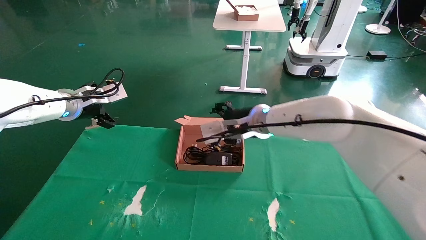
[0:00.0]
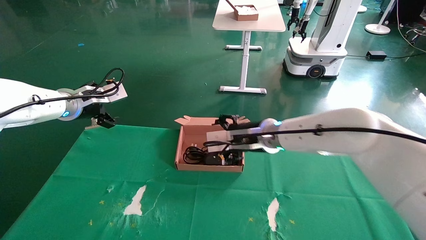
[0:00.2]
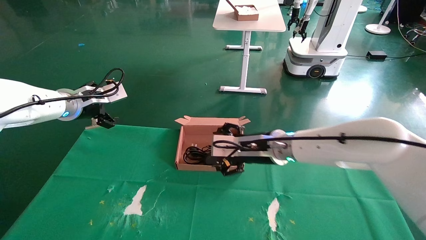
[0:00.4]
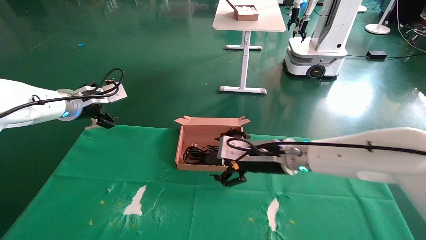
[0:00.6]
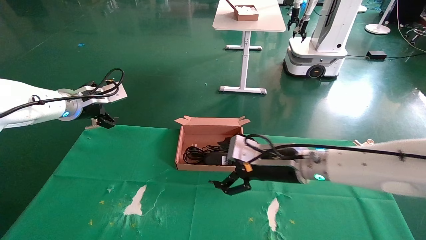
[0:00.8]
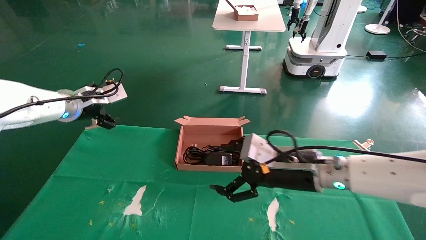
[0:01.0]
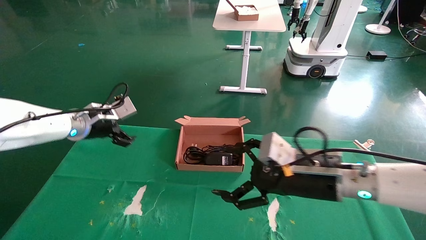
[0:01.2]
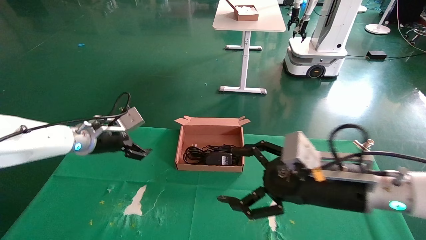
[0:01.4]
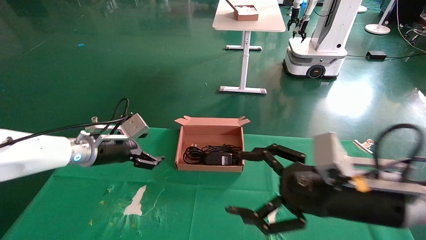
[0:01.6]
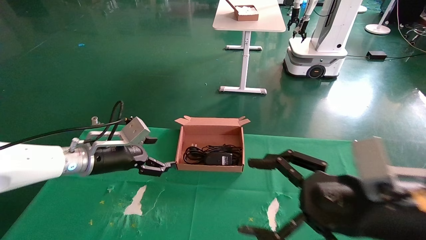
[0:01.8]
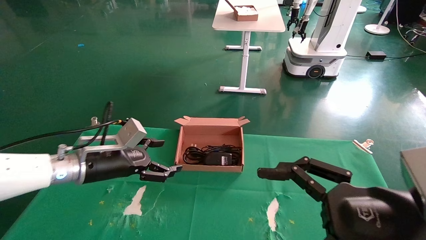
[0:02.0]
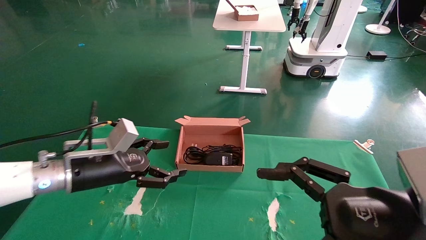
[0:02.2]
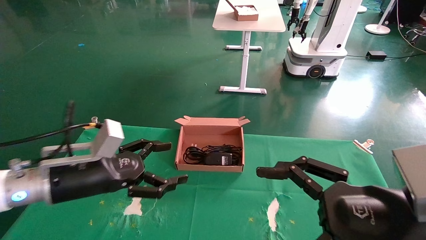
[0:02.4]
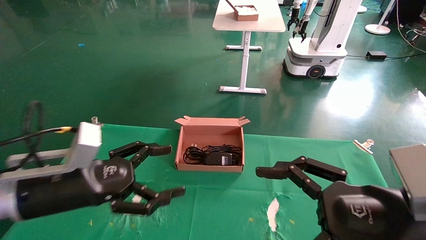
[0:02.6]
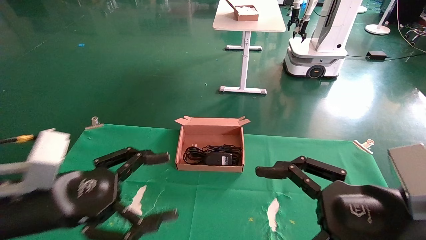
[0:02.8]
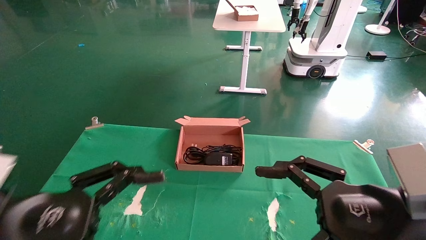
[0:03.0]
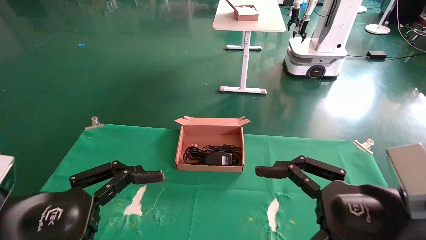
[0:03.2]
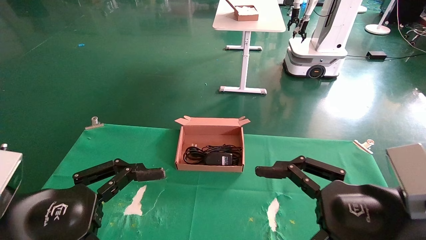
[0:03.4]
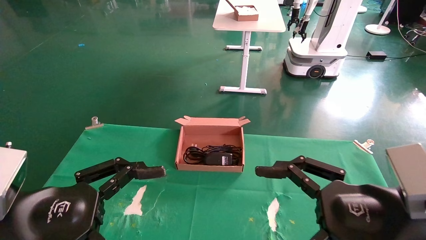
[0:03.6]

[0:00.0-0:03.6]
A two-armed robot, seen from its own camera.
0:00.0 to 0:01.8: The left gripper shifts roughly 15 cm downward, backward and to the right. Meanwhile the right gripper goes roughly 30 cm backward and to the right, and opens.
0:01.8 to 0:03.6: The left gripper shifts about 25 cm backward.
